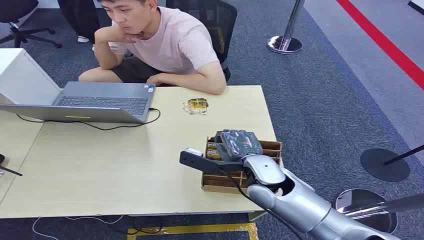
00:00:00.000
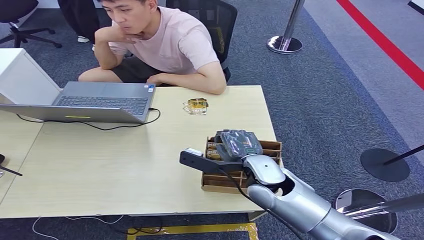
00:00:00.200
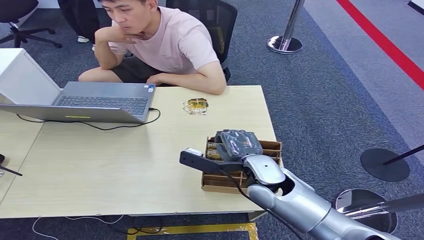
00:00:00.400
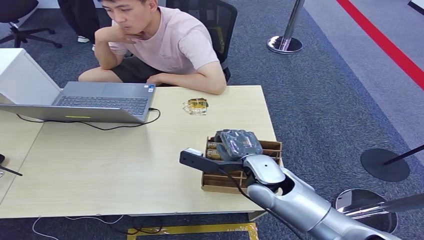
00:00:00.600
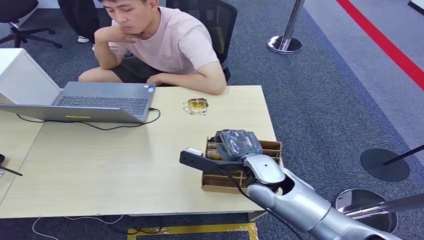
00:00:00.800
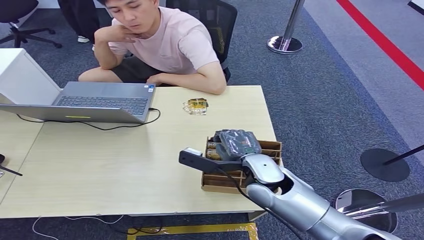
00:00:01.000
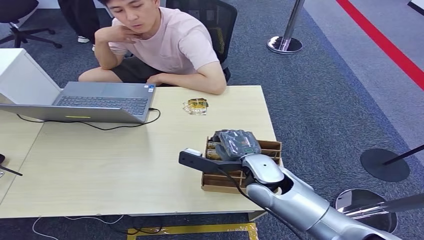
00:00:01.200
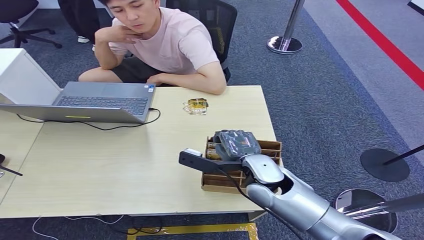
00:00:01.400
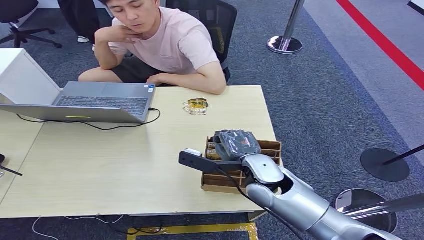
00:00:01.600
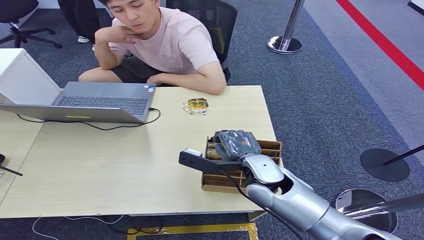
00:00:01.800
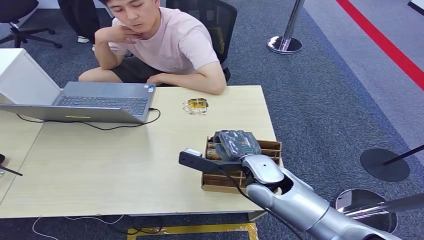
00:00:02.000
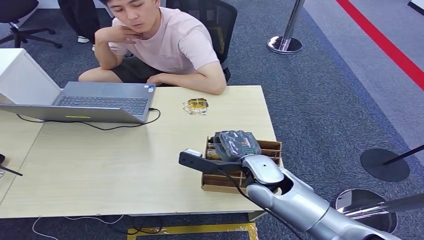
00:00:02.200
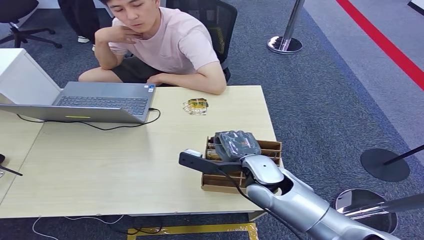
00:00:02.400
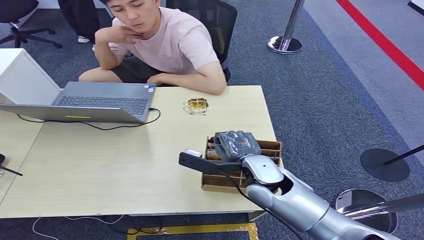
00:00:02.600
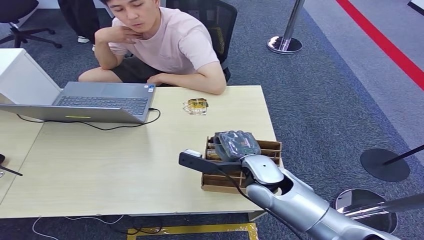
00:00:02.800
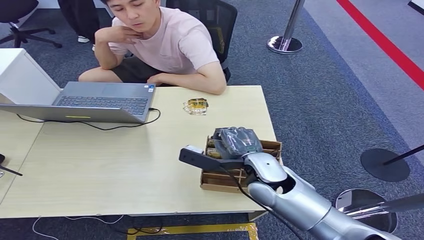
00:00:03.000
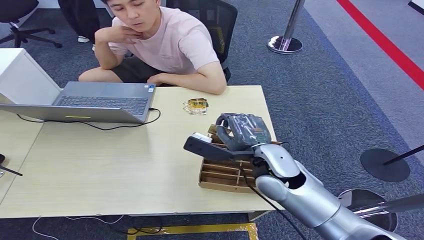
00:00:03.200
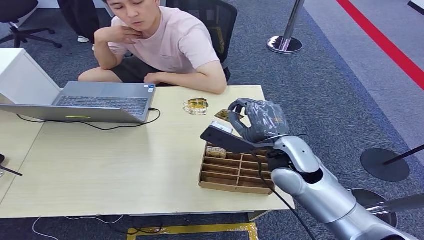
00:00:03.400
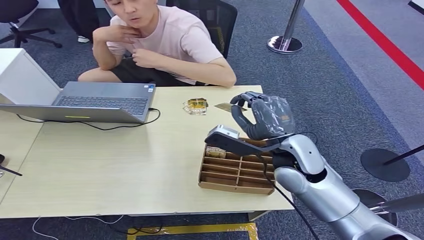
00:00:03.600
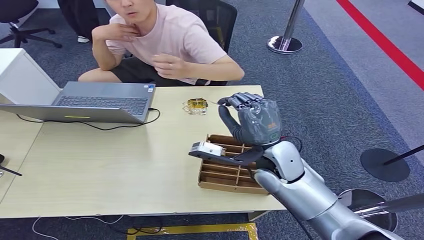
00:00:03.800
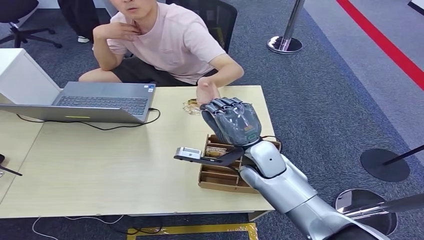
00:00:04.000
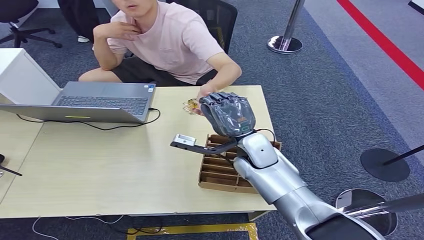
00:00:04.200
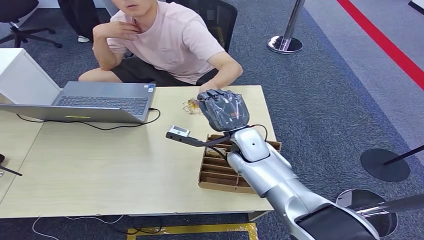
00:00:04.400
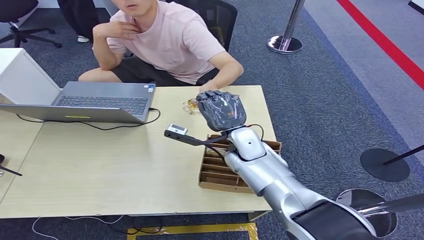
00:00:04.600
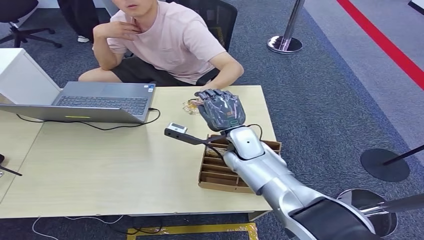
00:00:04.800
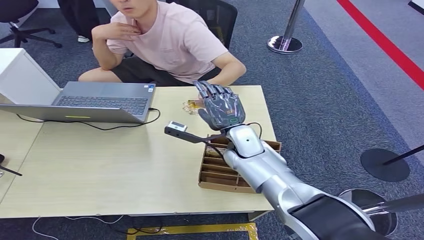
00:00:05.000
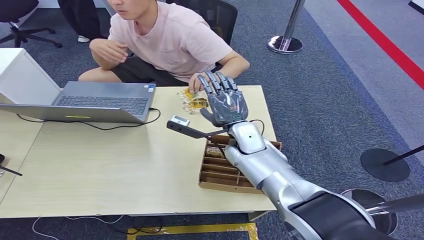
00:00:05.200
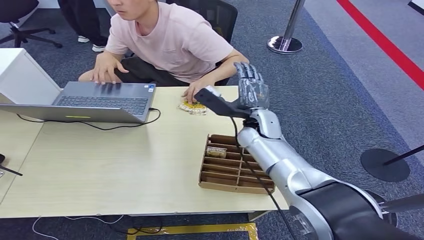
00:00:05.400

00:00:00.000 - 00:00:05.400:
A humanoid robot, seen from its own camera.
Step, 00:00:00.000 - 00:00:03.600: Pick up the room card from the card holder.
Step, 00:00:03.800 - 00:00:05.400: Hand the room card to the target.
00:00:04.000 - 00:00:05.400: The right hand moves forward, roughly 10 cm.

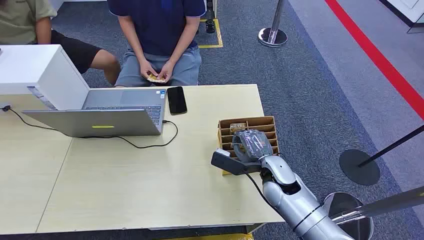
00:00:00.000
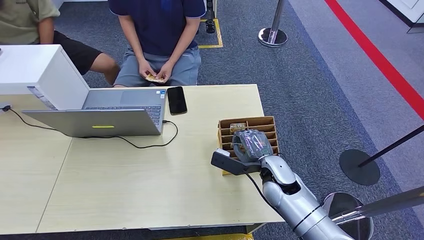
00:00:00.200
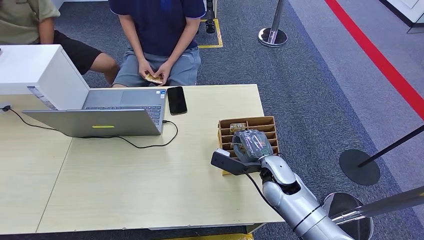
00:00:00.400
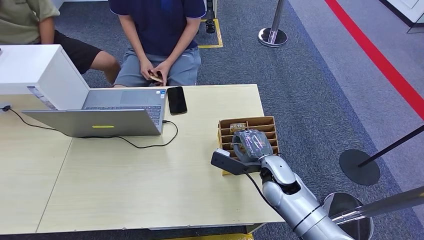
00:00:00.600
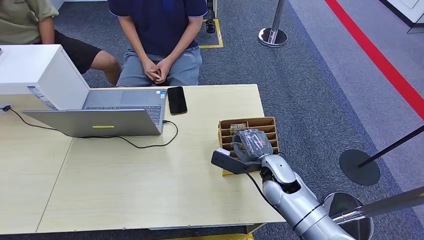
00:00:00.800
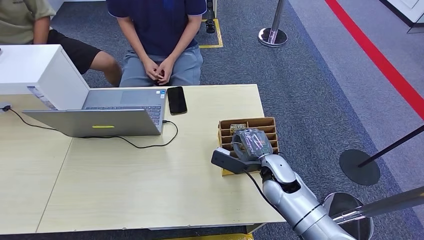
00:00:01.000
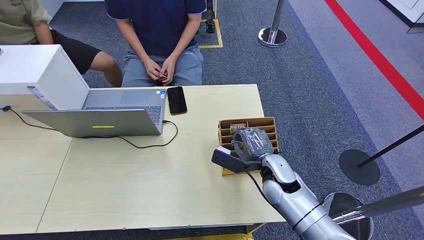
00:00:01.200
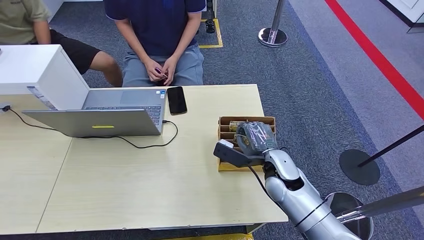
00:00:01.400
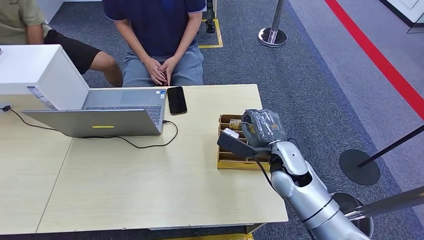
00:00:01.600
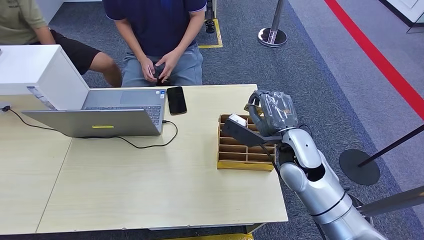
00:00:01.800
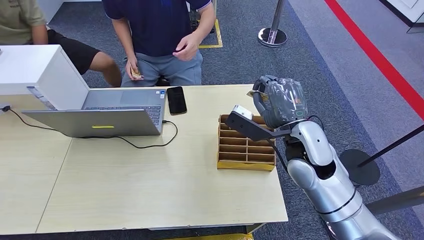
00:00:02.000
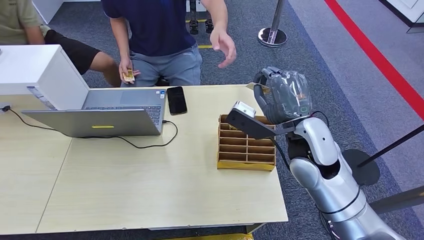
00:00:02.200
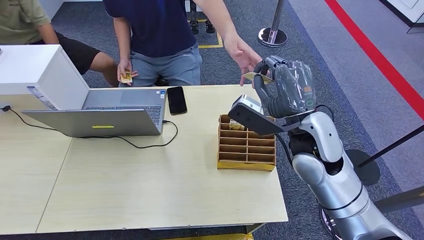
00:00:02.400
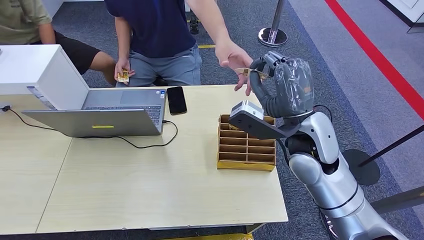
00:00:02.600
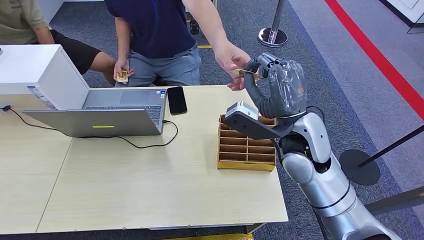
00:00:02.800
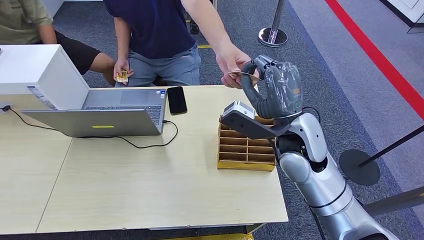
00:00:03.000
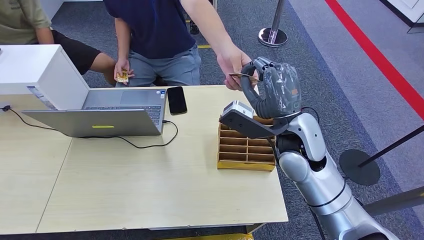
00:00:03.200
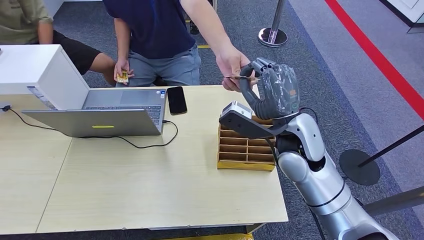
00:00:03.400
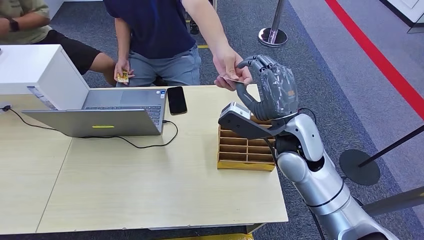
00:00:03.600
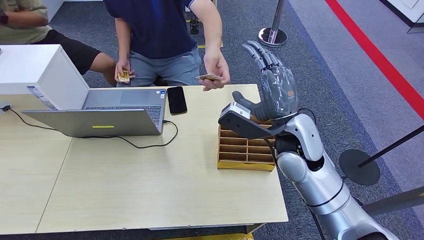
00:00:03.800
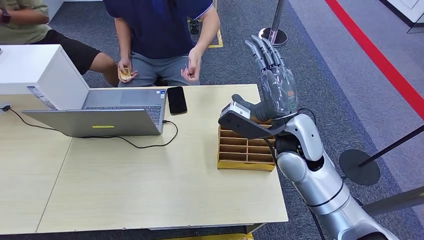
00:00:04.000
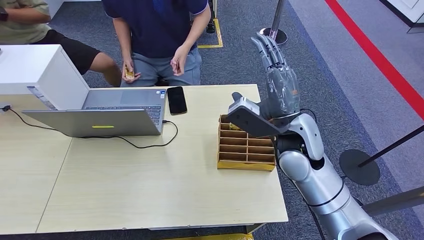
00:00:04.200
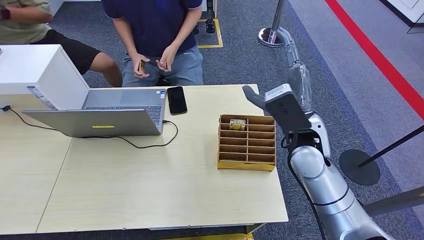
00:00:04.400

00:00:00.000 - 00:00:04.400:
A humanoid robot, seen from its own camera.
Step, 00:00:00.000 - 00:00:02.200: Pick up the room card from the card holder.
Step, 00:00:02.400 - 00:00:04.400: Hand the room card to the target.
00:00:01.400 - 00:00:03.000: The right hand travels upward by roughly 15 cm.
